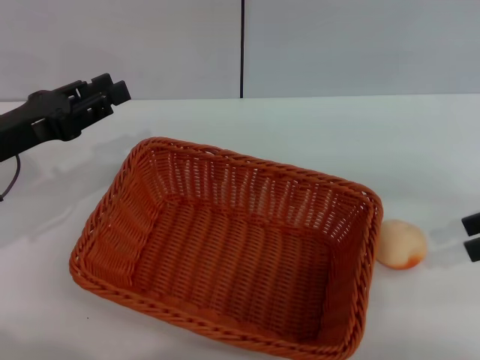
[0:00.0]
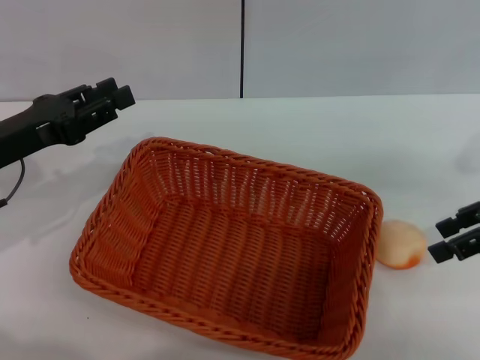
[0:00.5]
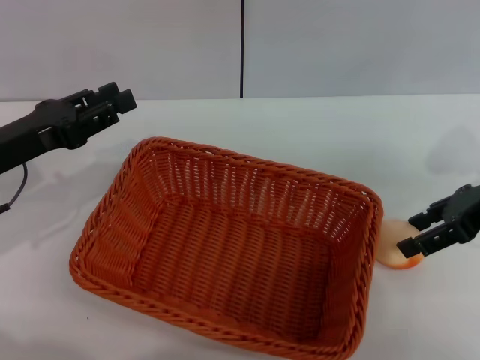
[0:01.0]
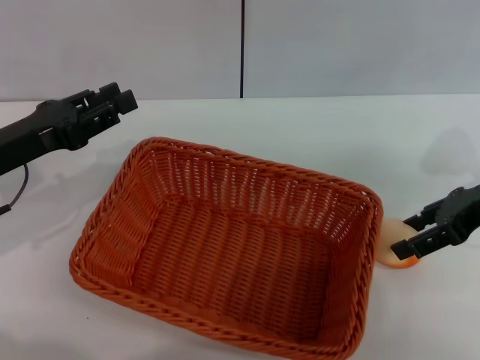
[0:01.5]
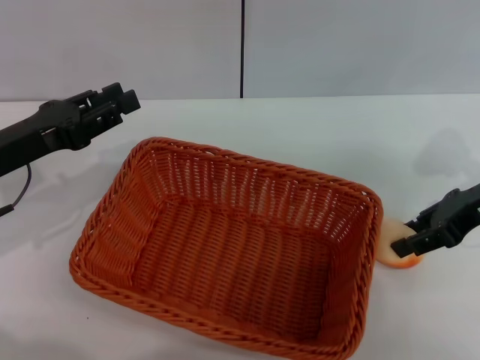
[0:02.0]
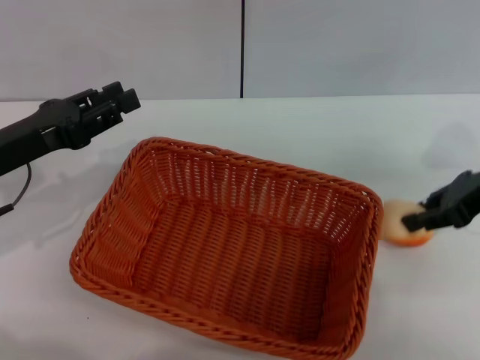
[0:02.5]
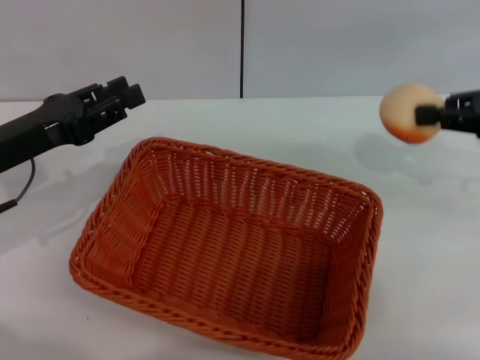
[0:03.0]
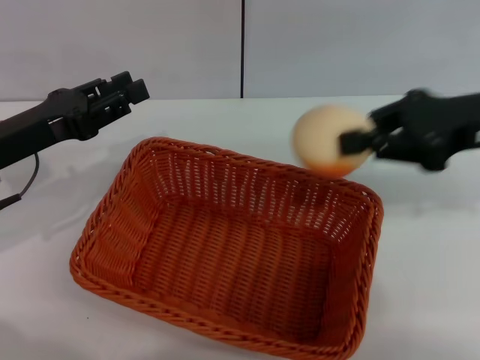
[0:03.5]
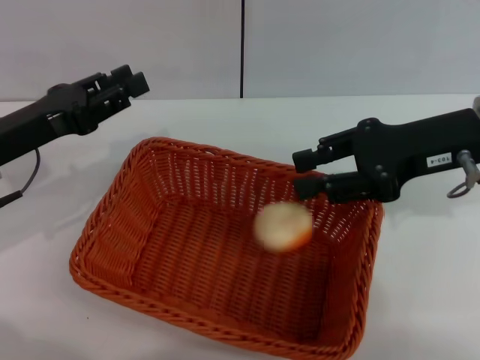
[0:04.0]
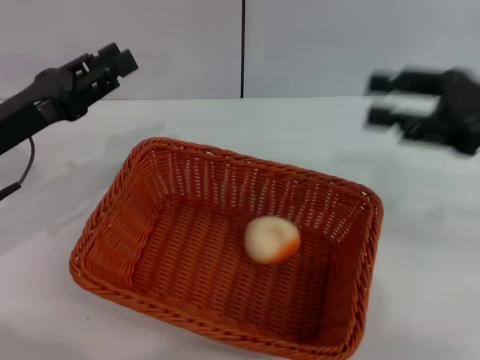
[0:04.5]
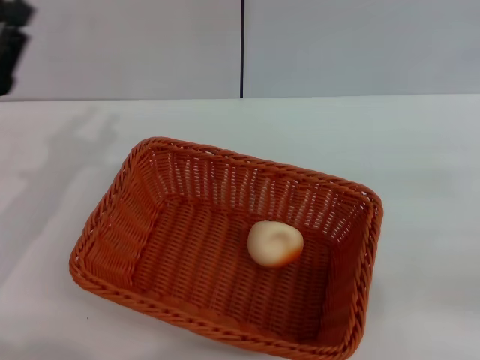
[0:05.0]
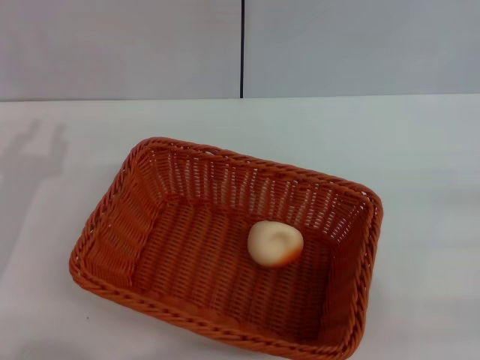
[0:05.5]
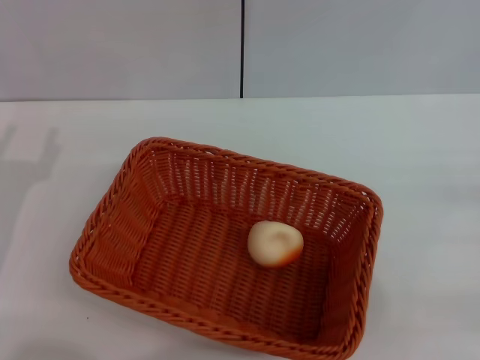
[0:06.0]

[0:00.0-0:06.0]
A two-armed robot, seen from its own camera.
Step, 0:00.0 to 0:03.0: Pick up the egg yolk pastry with the right gripper.
Step, 0:03.5 to 0:04.0: Place the egg yolk pastry into the basket with the right gripper.
0:00.0 to 0:02.0: The right gripper goes approximately 5 cm to the left.
0:02.0 to 0:04.0: The right gripper goes roughly 10 cm to the left and upward, and closes its fingers.
0:04.0 to 0:06.0: The right gripper heads to the right, backward and downward, covering about 25 cm, and opens, while the left gripper travels backward by approximately 5 cm, and opens up.
